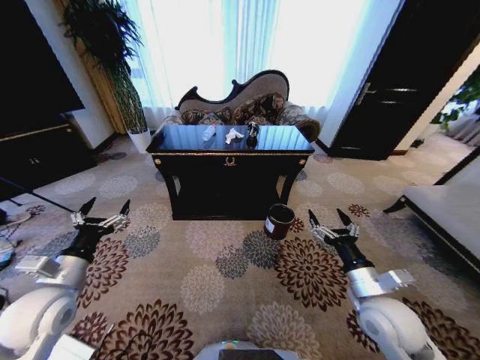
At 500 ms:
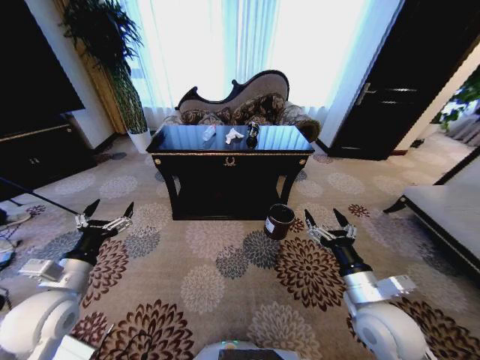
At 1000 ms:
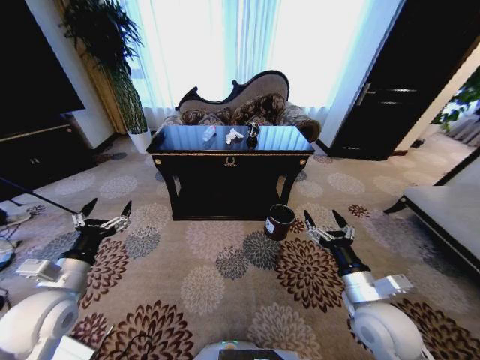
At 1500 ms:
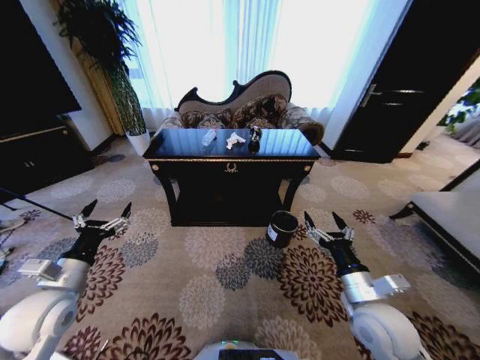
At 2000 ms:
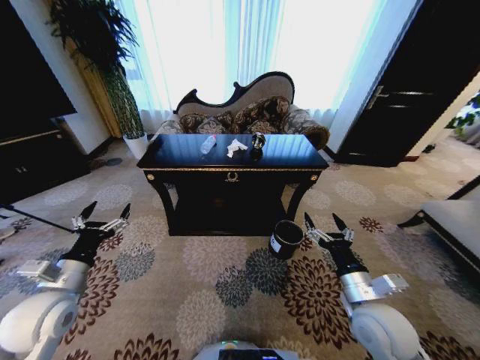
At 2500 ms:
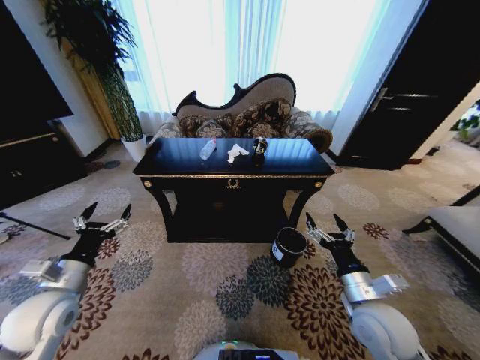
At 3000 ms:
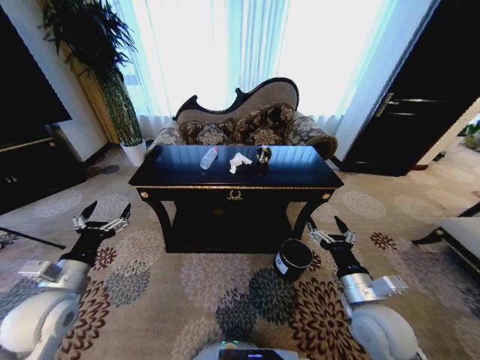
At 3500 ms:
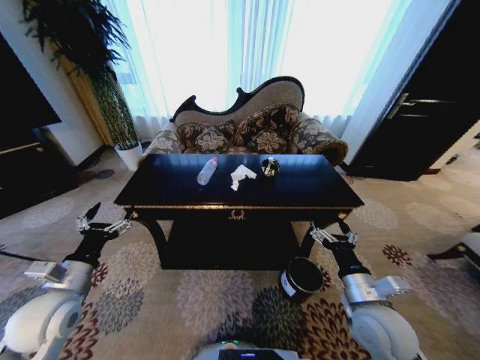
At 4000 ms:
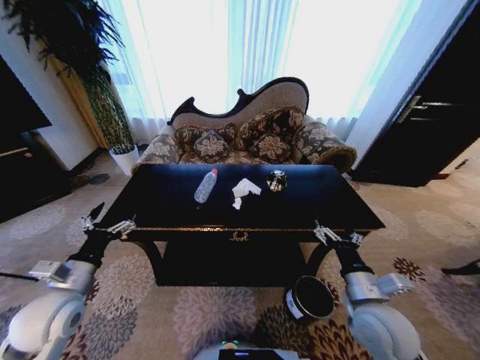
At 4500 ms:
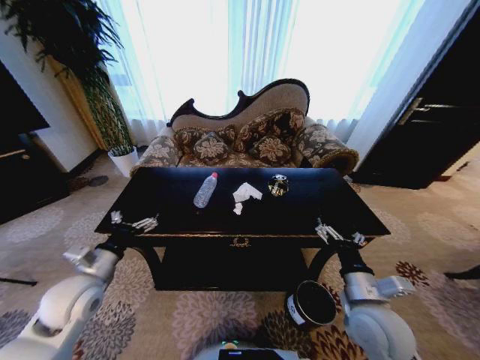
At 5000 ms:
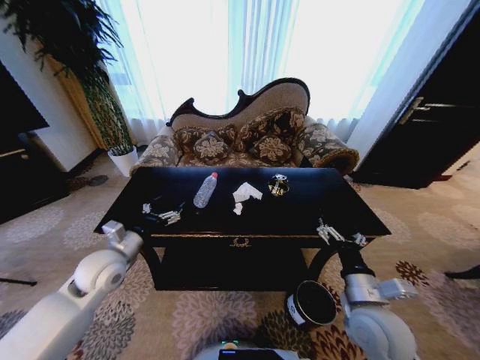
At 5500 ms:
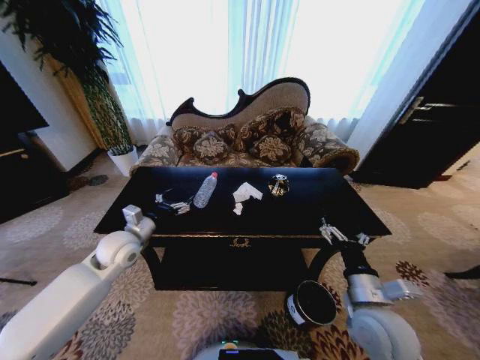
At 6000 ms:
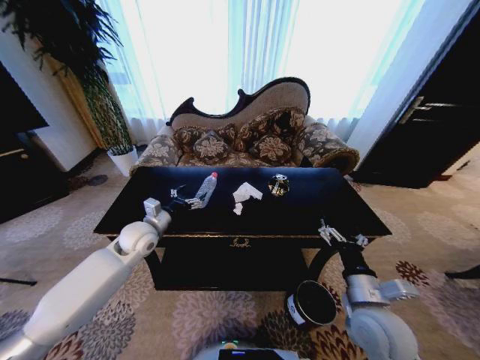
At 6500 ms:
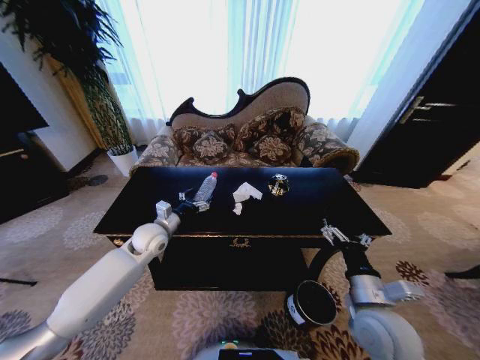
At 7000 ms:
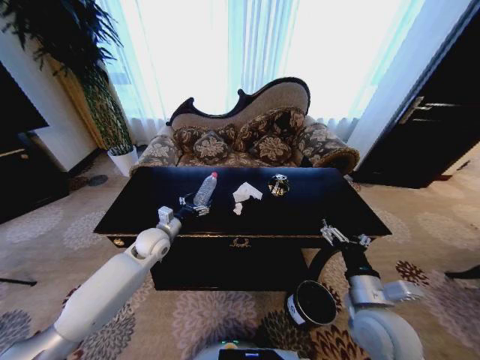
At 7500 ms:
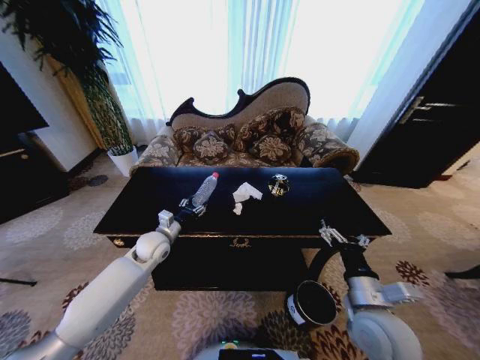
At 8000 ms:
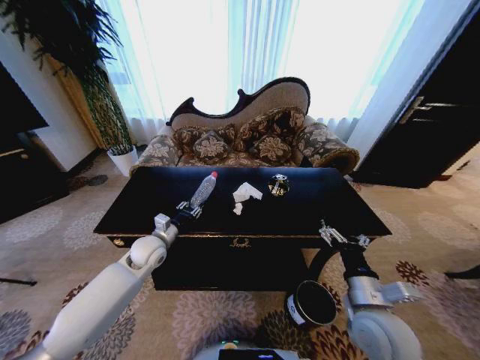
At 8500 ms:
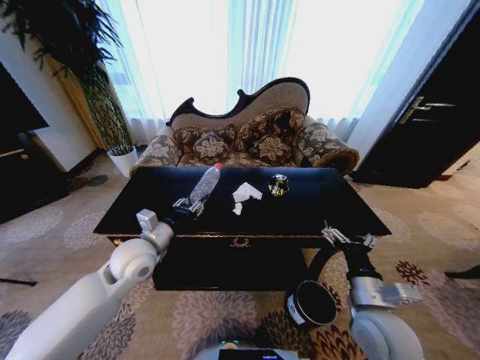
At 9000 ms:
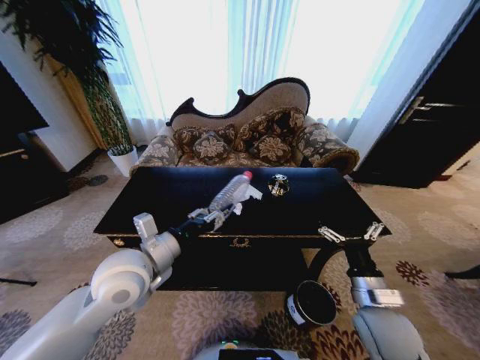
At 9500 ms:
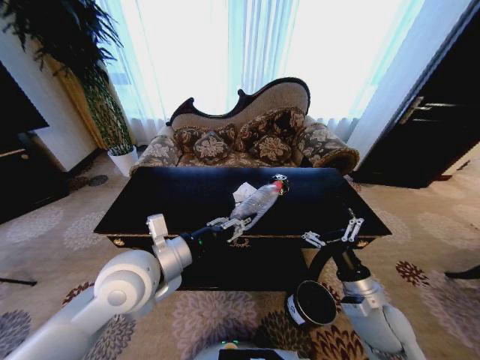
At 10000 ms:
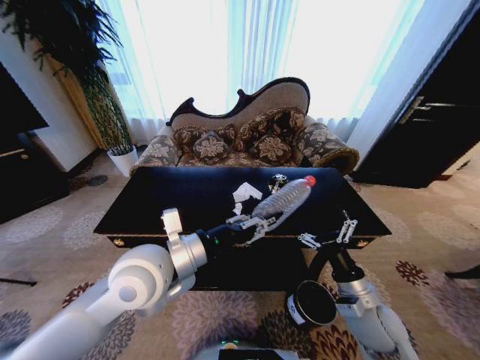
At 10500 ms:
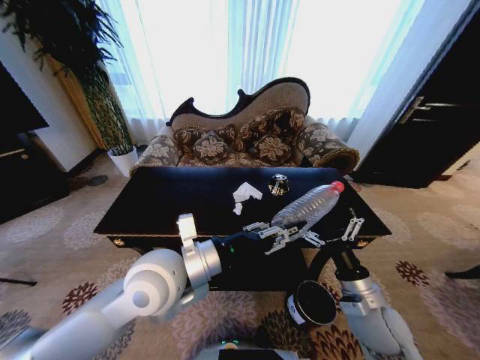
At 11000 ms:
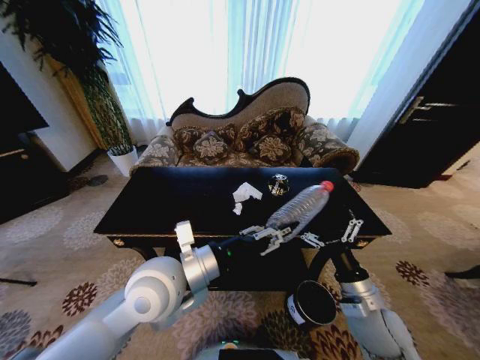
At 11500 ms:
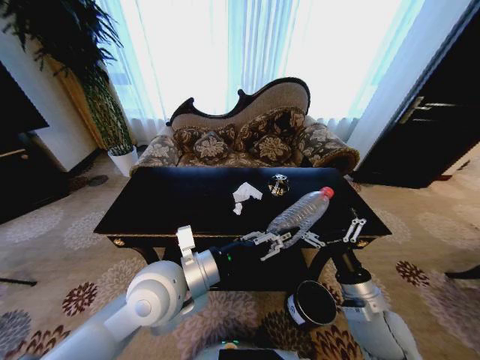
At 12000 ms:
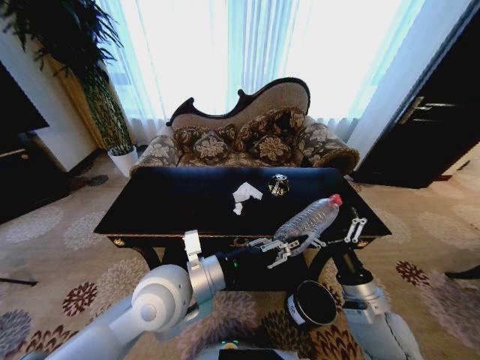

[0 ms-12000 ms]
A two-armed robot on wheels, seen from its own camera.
Task of the whole recording: Move to the front of the table and place the trash on the table into the trash bin.
4000 ms to 6000 ms: The left gripper travels forward and to the right by approximately 20 cm.
6000 ms to 8000 ms: The left gripper ends up some 5 cm from where it was, and closes.
8000 ms to 10000 ms: The left gripper shifts some 25 cm upward, backward and to the right.
10000 ms to 12000 ms: The left gripper shifts by approximately 5 cm.

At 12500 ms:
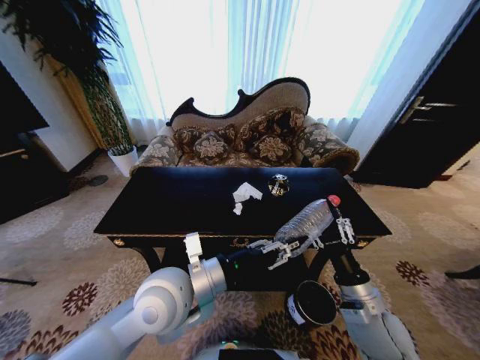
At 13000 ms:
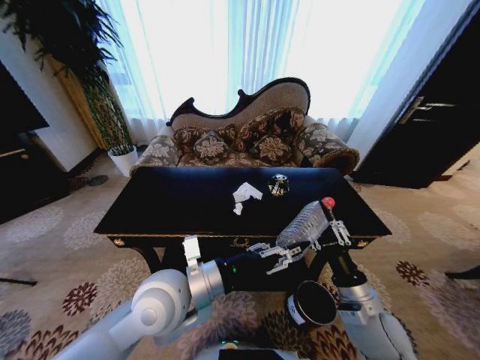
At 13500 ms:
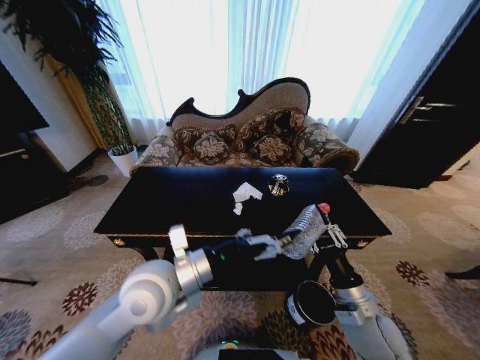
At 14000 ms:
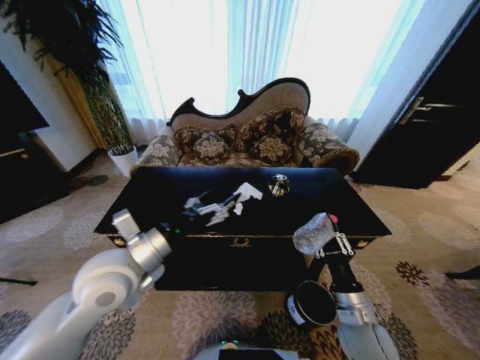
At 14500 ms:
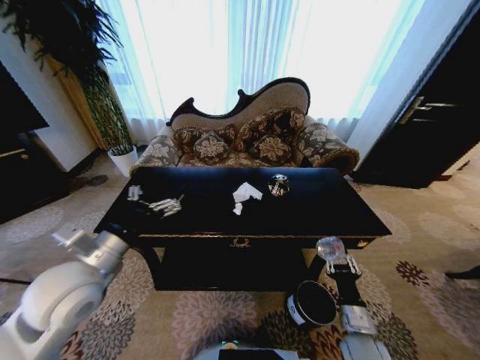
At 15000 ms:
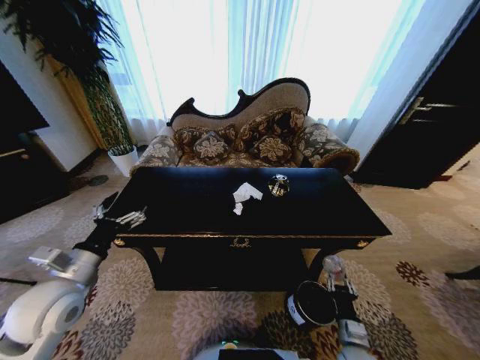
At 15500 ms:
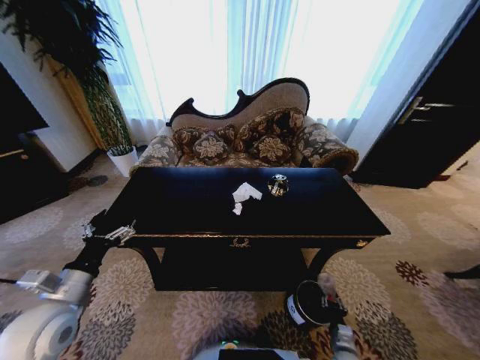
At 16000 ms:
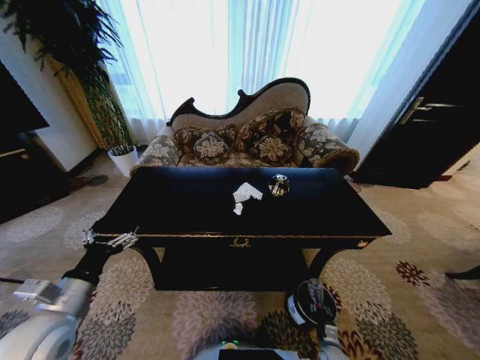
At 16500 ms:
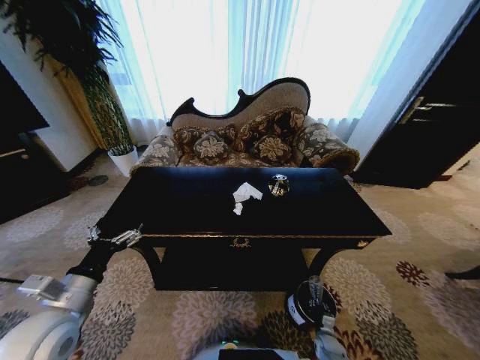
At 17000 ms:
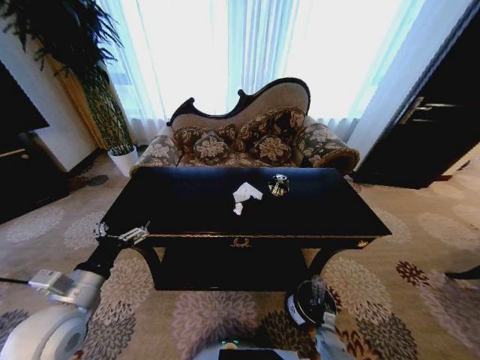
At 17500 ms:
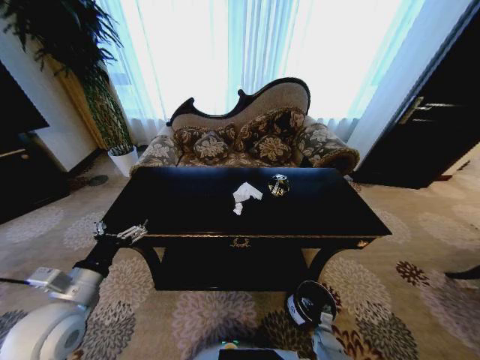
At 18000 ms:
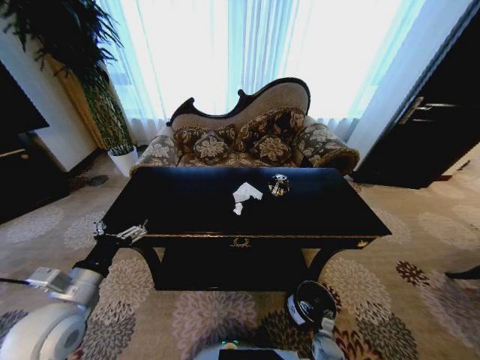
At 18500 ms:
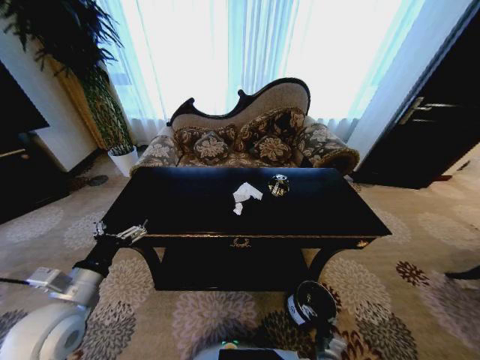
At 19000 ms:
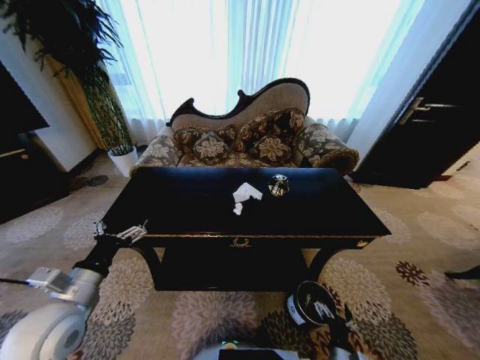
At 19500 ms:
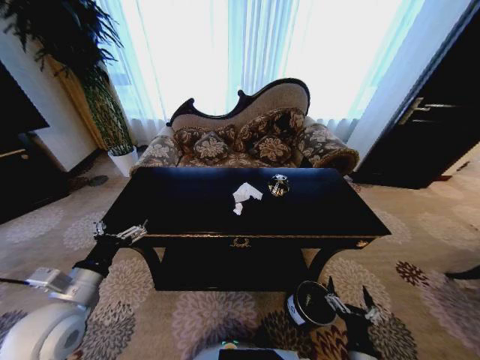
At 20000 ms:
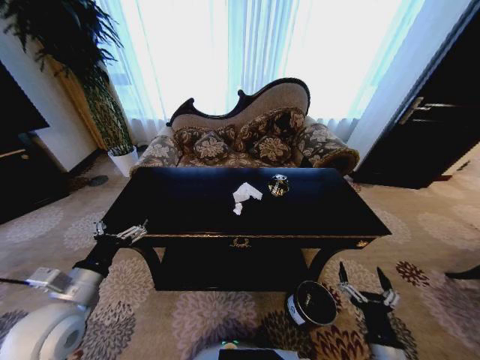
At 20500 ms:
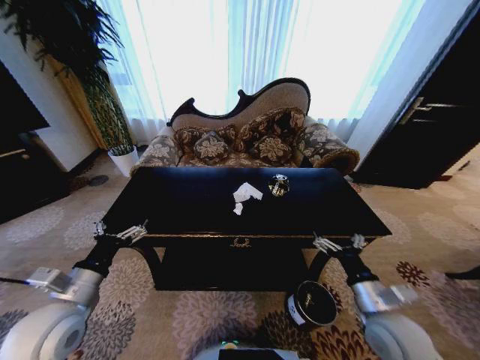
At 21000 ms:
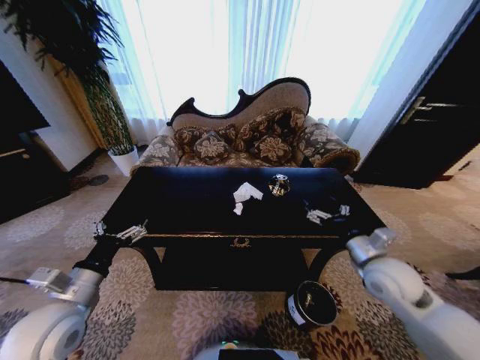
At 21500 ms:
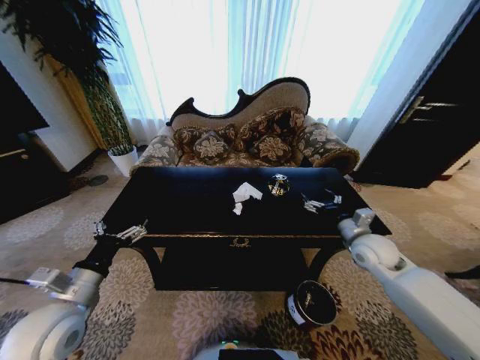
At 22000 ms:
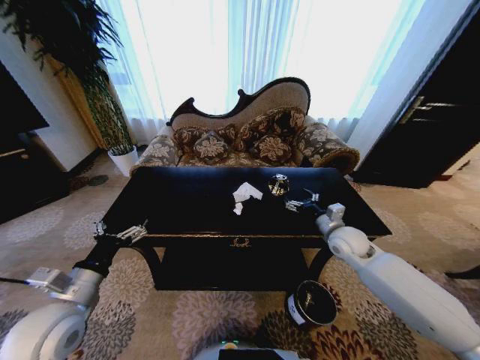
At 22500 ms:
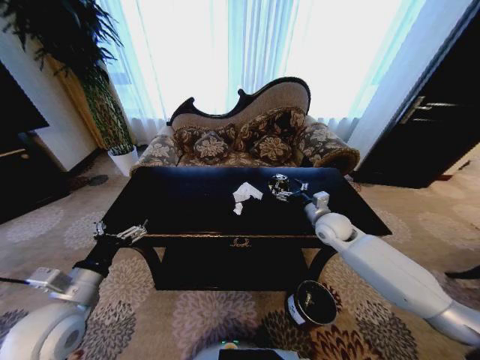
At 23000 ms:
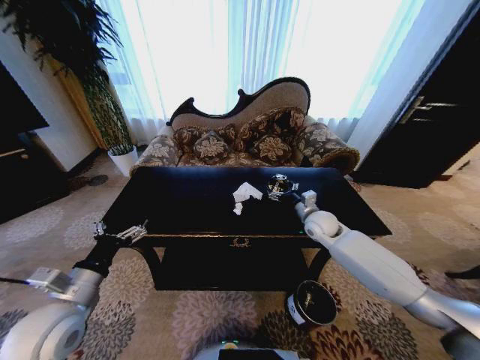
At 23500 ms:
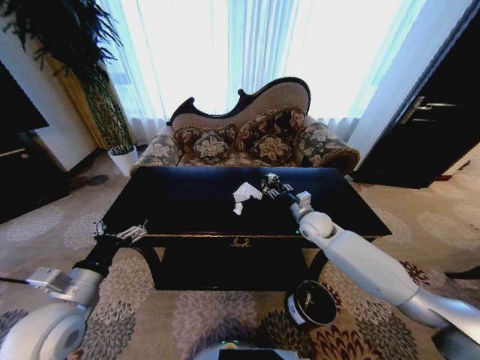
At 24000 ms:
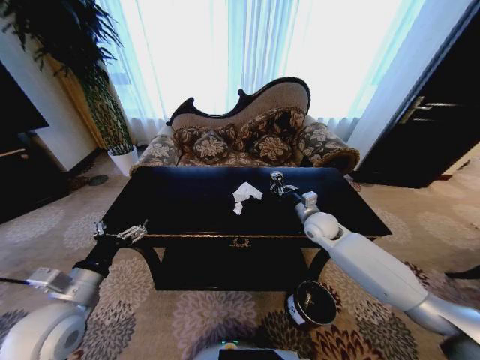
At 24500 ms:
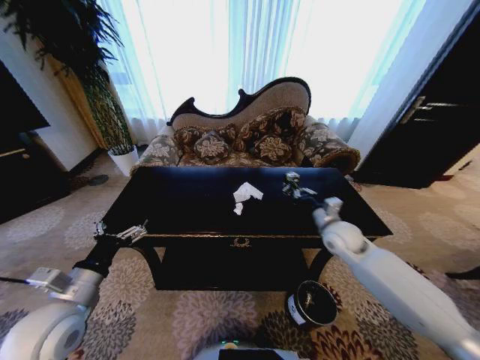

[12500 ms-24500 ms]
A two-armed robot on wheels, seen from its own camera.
Task of the whole recording: Move to the front of the table and place the trash on the table into the trash bin.
12500 ms to 14500 ms: The right gripper goes roughly 10 cm downward. The left gripper travels to the left by roughly 15 cm, and opens its fingers.
14500 ms to 16500 ms: The left gripper is displaced downward, to the left and backward by about 10 cm, while the right gripper shifts about 30 cm downward.
16500 ms to 18500 ms: The right gripper moves backward, upward and to the left, some 10 cm, and opens its fingers.
18500 ms to 20500 ms: The right gripper travels upward by roughly 35 cm.
20500 ms to 22500 ms: The right gripper moves forward, some 25 cm.
22500 ms to 24500 ms: The right gripper closes its fingers.

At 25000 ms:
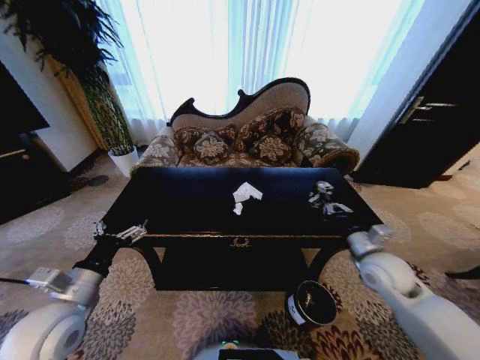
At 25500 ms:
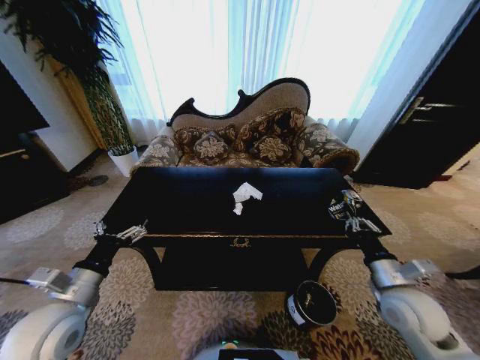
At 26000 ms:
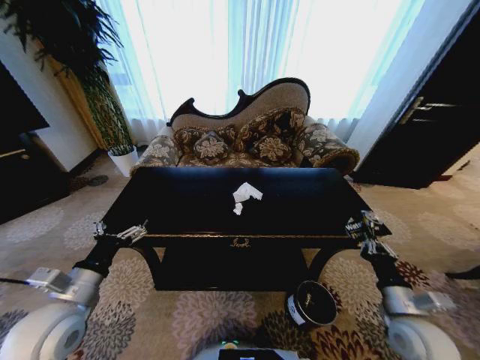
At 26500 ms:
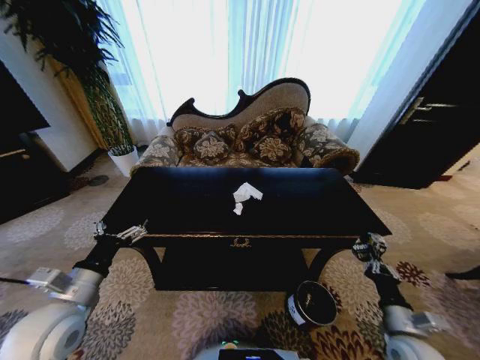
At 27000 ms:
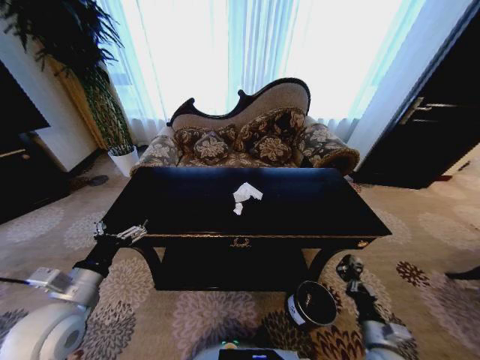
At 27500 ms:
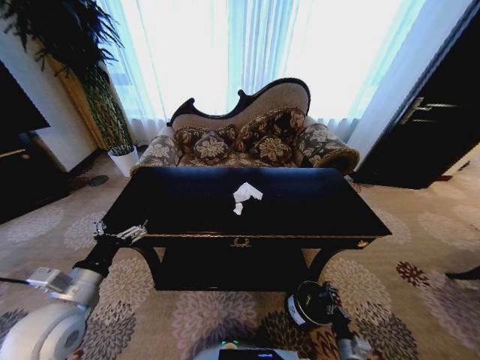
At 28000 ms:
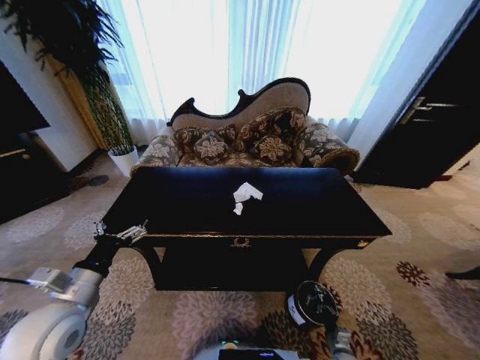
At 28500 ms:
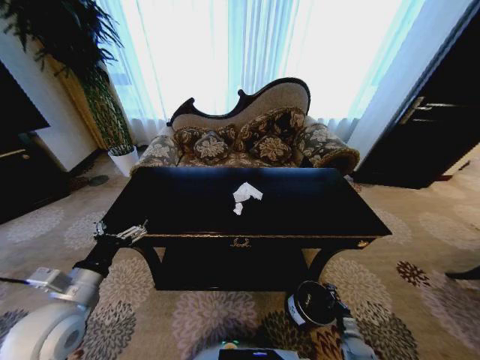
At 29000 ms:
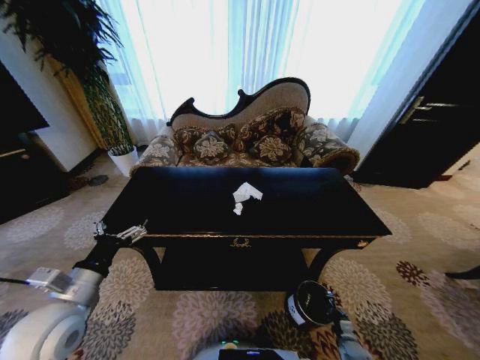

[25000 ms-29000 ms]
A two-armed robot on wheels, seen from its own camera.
Task of the whole recording: Move to the front of the table and place the trash on the table into the trash bin.
25000 ms to 27000 ms: The right gripper moves downward and backward, roughly 25 cm.
27000 ms to 29000 ms: The right gripper travels downward by roughly 20 cm.
